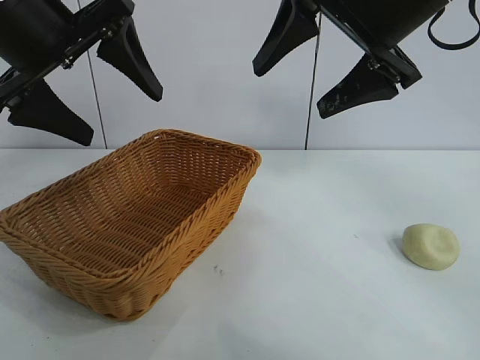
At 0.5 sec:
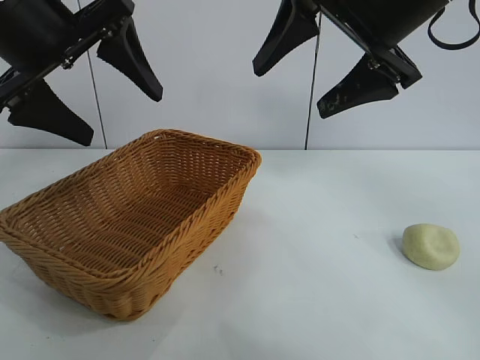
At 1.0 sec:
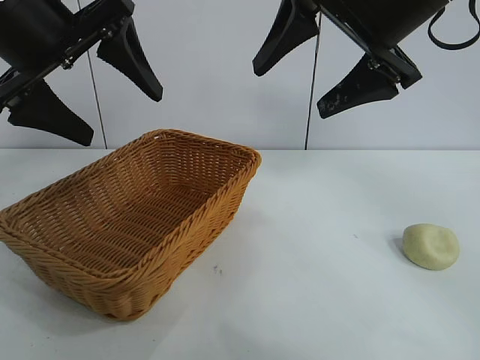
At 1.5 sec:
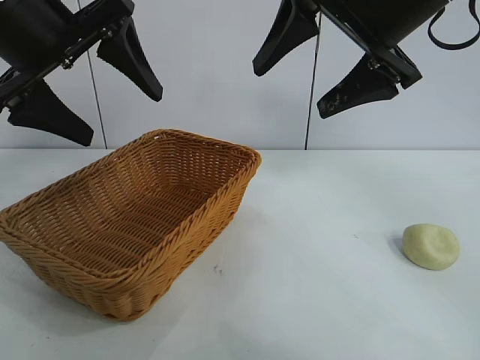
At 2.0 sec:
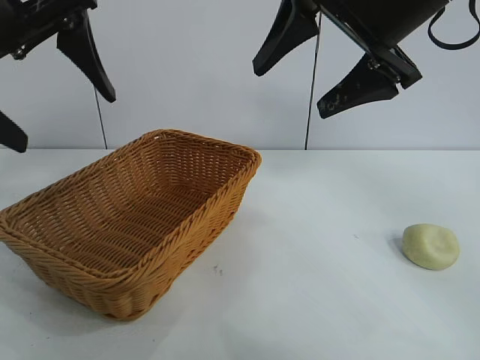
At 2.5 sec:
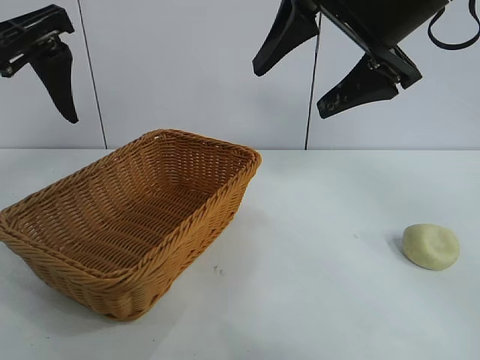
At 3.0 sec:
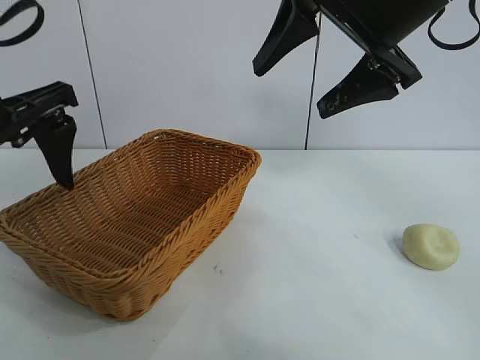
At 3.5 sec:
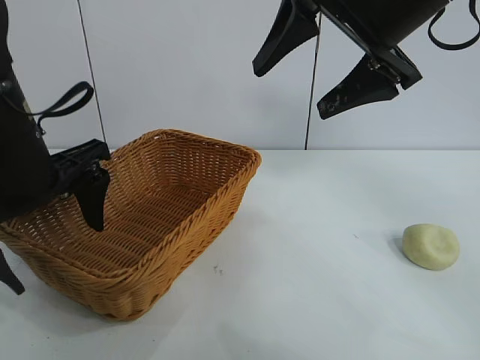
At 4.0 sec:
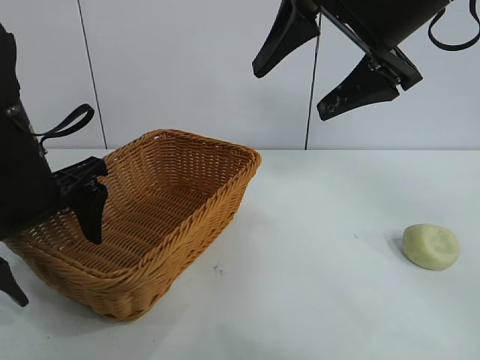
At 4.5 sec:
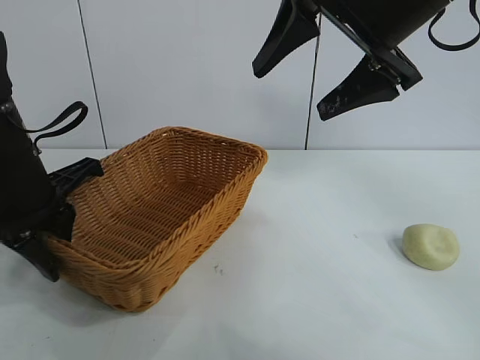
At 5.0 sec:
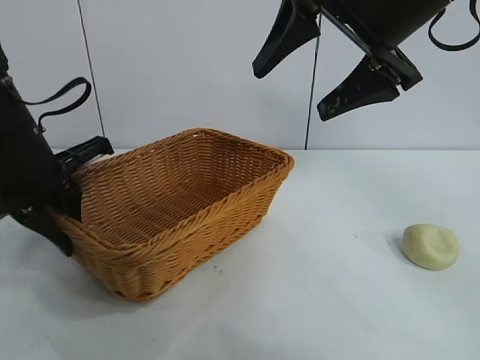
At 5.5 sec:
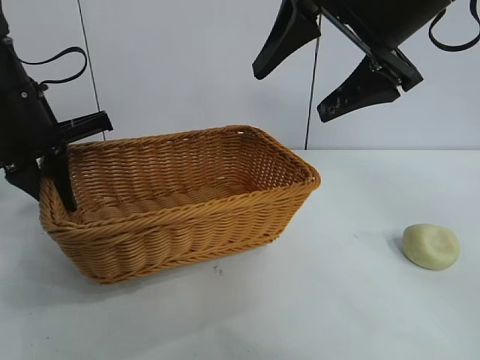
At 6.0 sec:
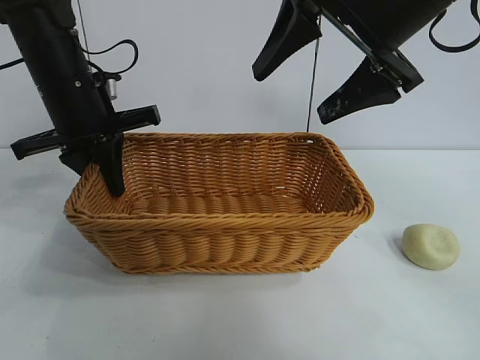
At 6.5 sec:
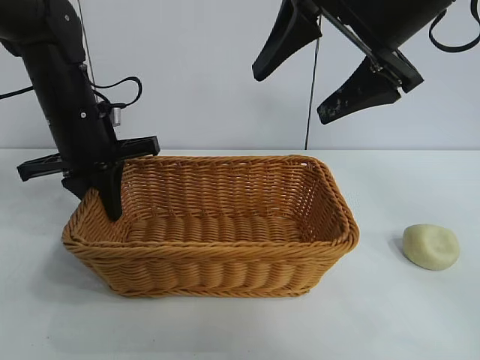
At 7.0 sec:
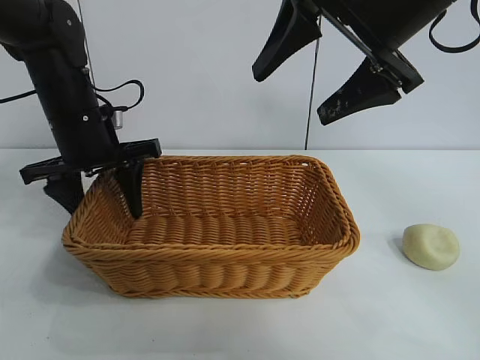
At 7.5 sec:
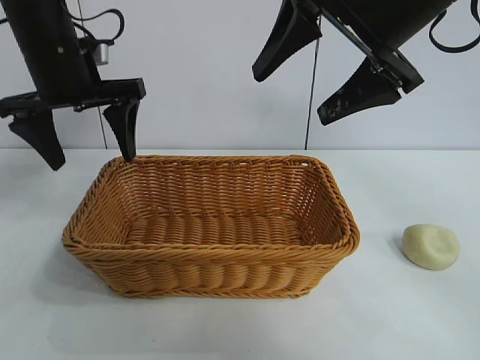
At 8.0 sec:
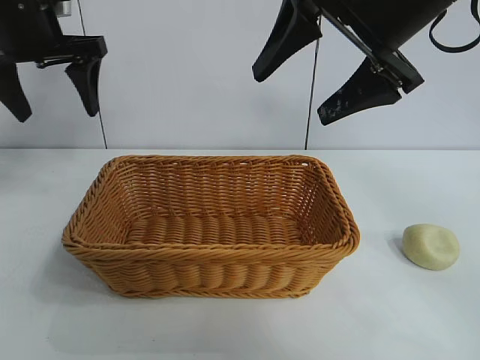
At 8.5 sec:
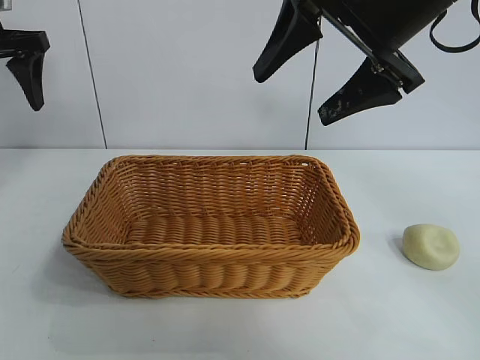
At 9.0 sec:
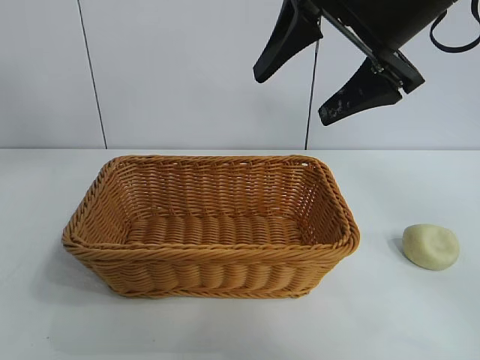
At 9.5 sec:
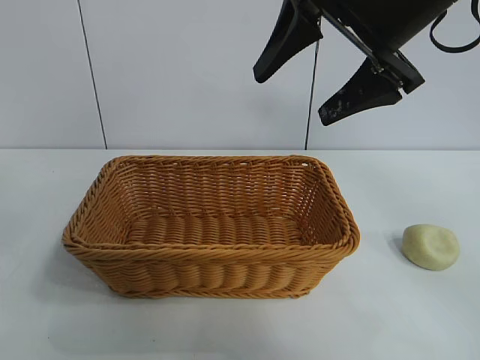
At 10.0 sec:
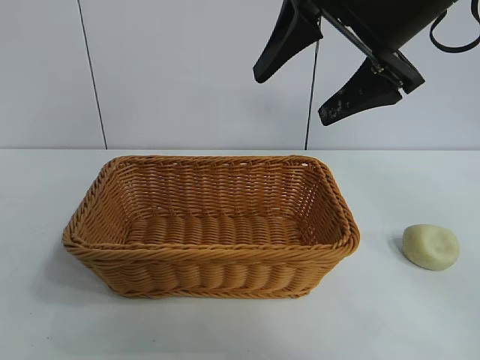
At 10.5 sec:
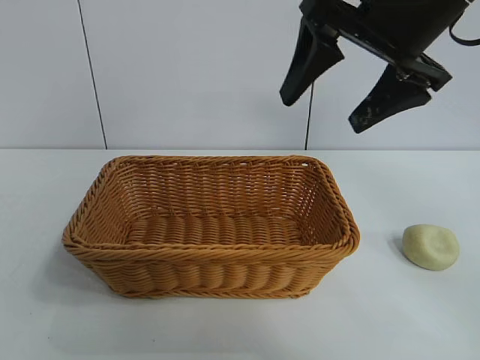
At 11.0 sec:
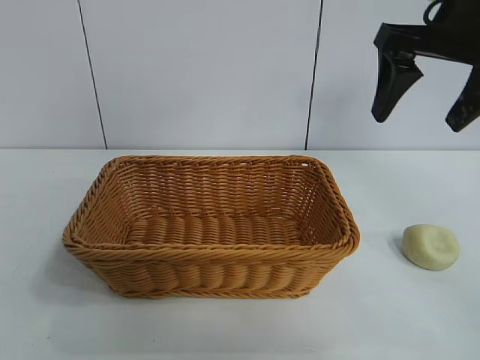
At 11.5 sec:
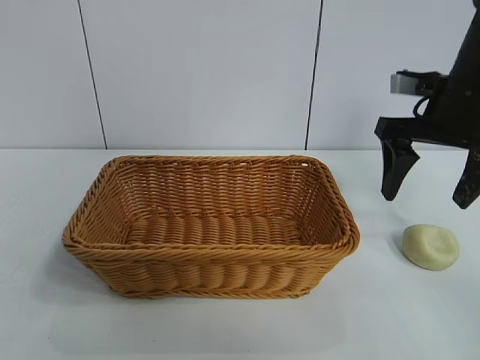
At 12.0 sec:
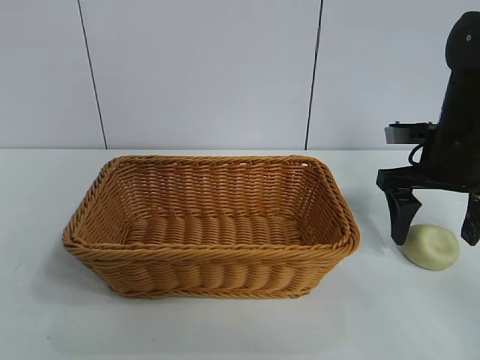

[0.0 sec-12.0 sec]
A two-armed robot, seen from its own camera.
Task of the whole recording: pick up the egg yolk pastry and put it into the basket.
Step, 1.5 sec to 4.5 sec: Grasp the basket with left gripper.
Step, 5.0 sec to 6.5 sec: Place the basket in the center of view with left gripper.

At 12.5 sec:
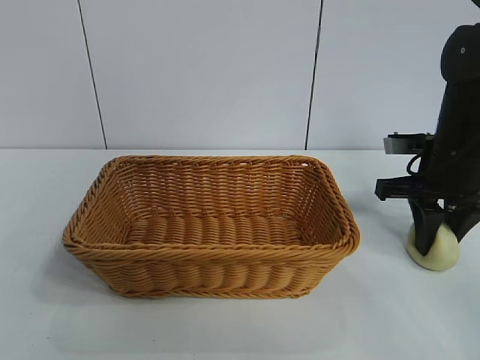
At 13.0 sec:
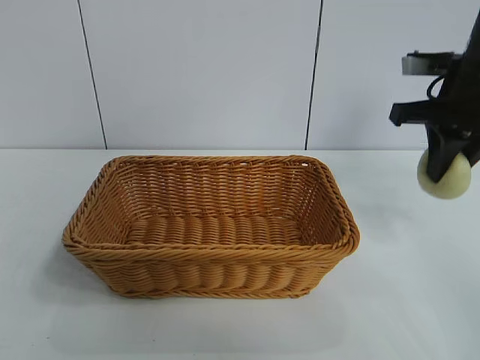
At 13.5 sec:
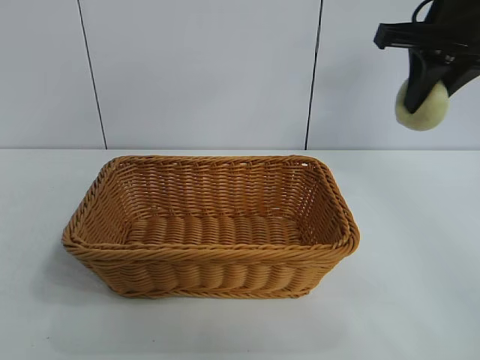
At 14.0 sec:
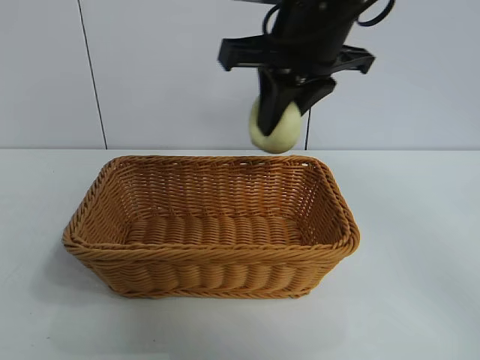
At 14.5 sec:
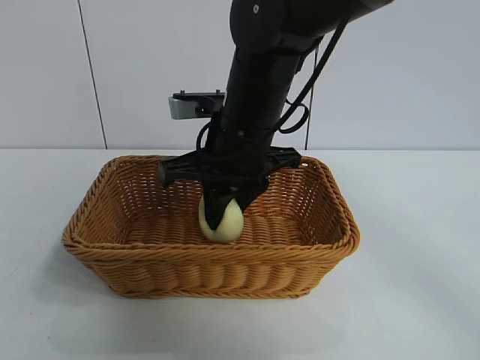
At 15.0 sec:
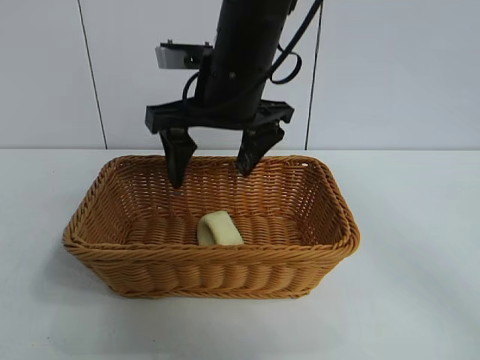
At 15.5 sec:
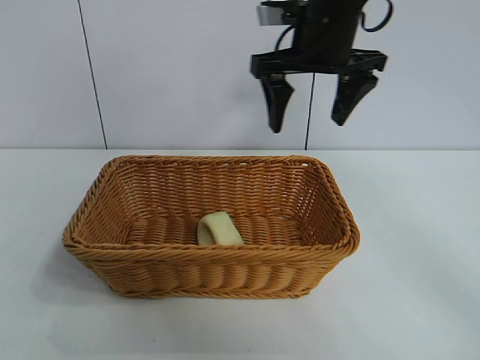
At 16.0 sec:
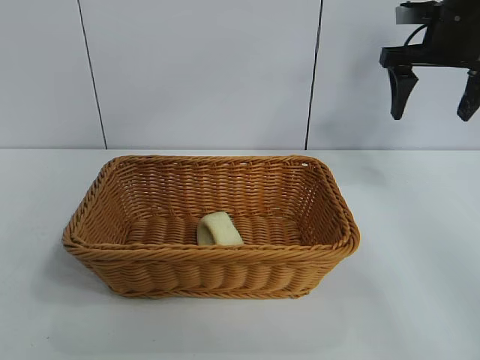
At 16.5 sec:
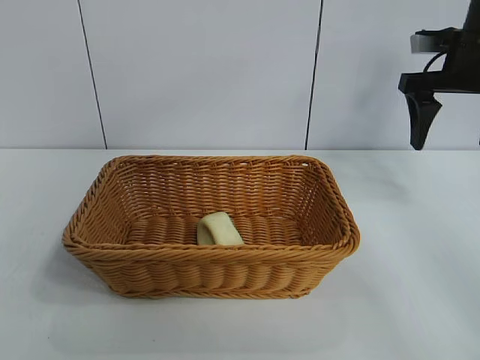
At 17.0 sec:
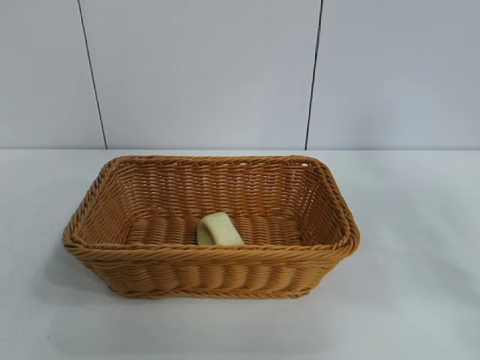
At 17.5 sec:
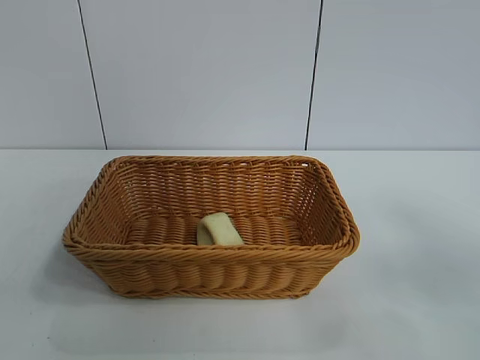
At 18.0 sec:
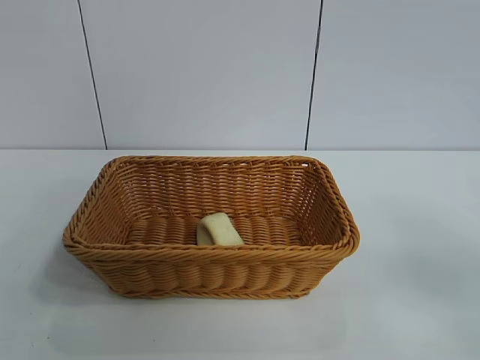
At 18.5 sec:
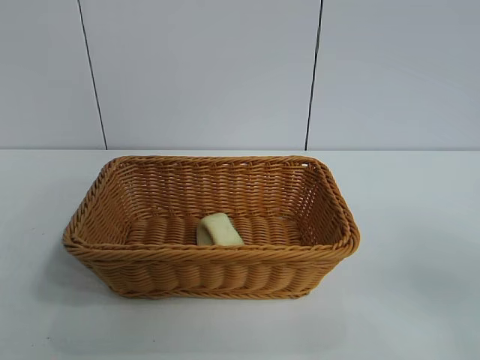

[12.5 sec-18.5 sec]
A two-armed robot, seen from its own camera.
Task of the whole recording: pick up the egg yolk pastry and put it into the basket.
Step, 13.0 sec to 14.5 sec: Place the egg yolk pastry in the basket with right gripper.

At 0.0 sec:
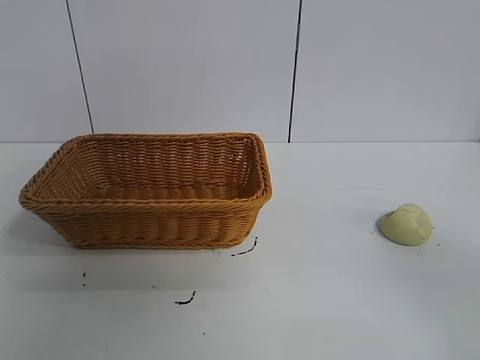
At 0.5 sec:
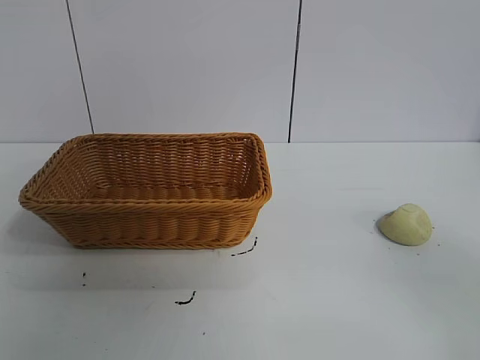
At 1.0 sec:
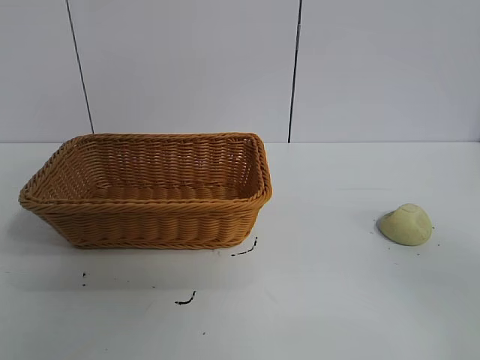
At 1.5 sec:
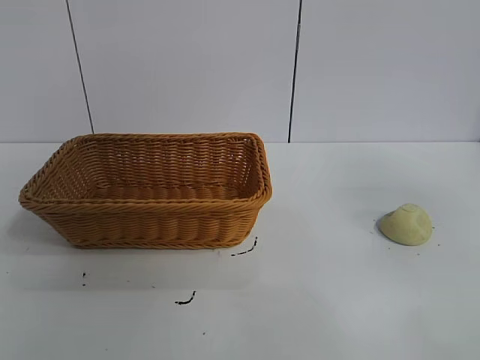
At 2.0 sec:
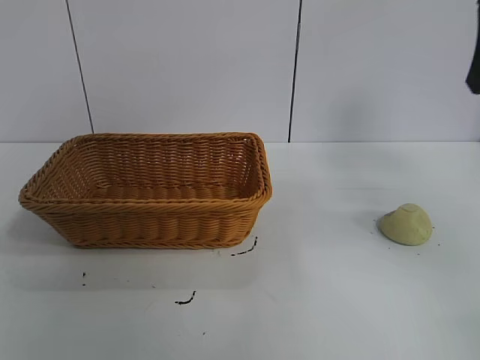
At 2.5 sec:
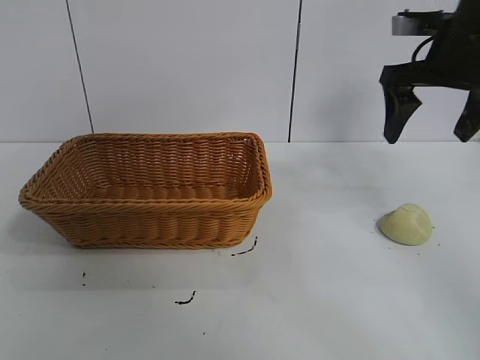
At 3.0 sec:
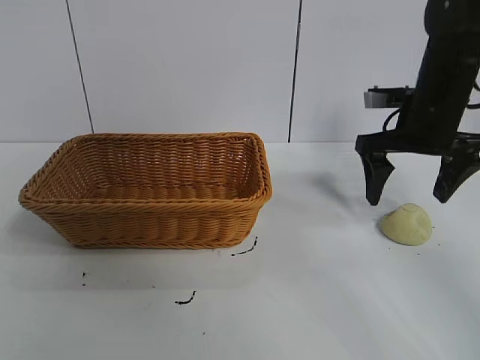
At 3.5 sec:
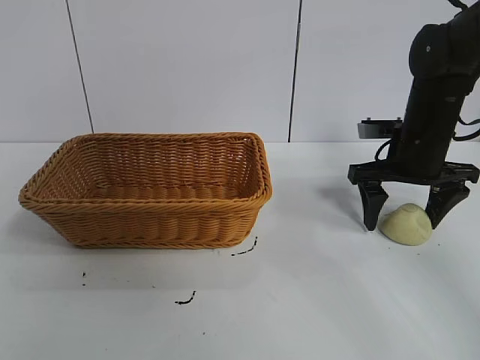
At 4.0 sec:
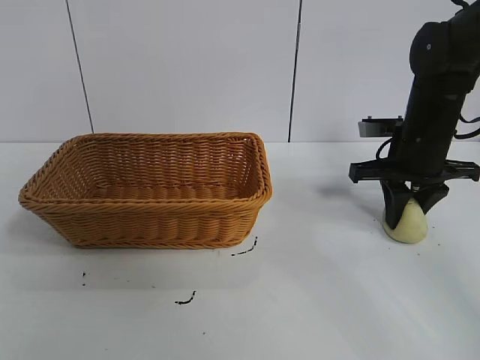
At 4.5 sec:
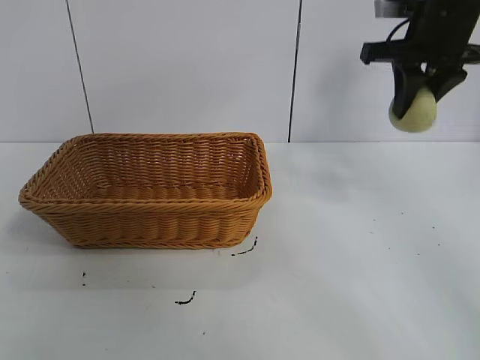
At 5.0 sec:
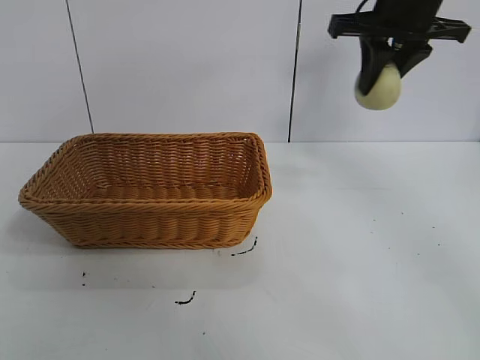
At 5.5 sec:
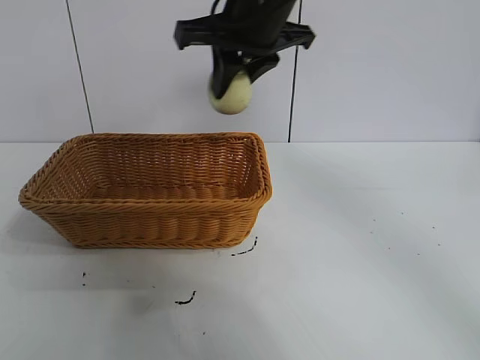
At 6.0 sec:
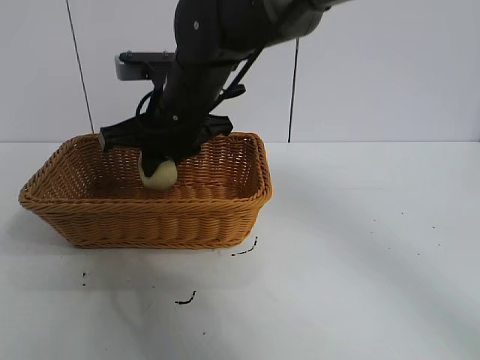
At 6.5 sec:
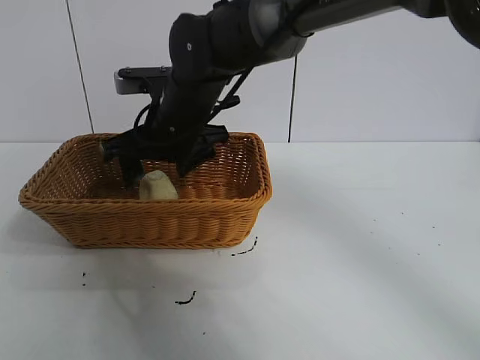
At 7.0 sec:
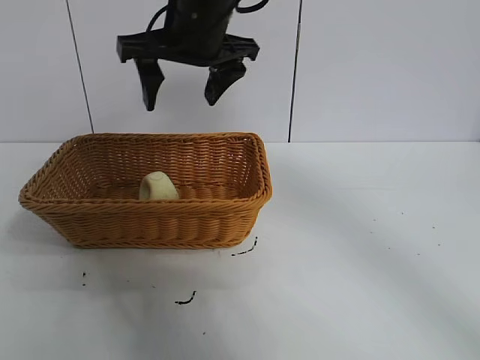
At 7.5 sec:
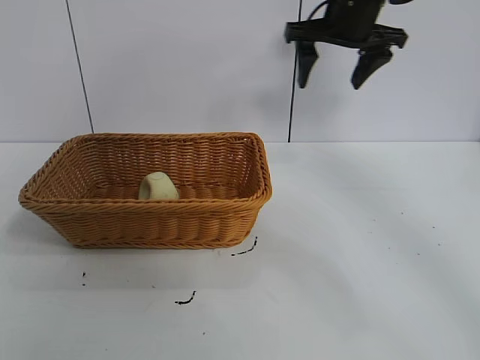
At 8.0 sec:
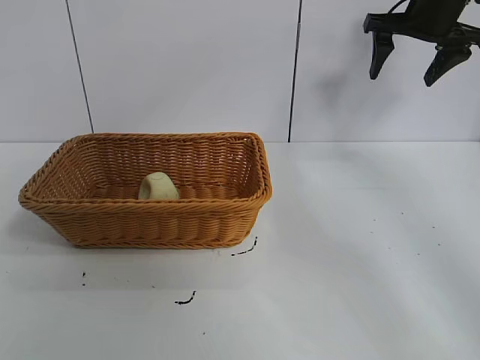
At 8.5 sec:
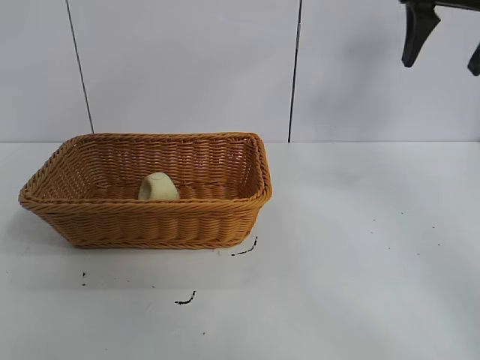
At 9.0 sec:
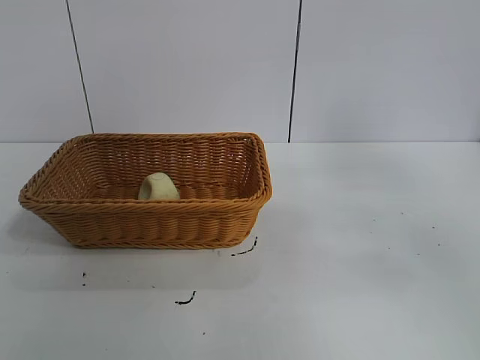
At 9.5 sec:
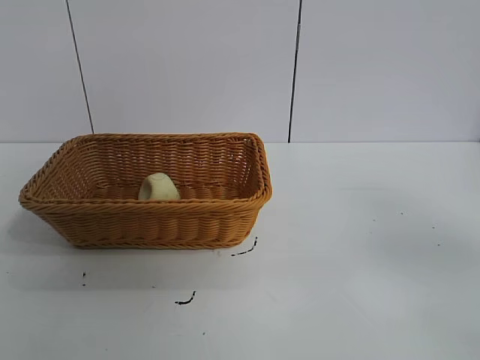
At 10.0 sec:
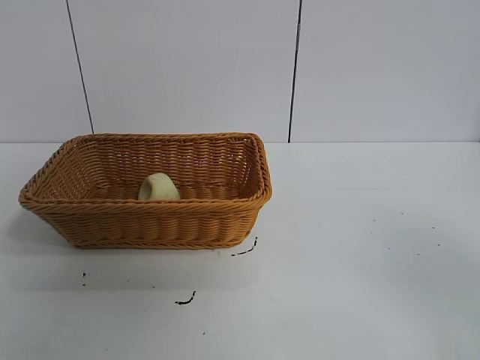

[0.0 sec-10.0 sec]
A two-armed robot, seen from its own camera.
Task of the whole recording: pick up the egg yolk pastry and put it into the basket.
Step, 1.0 sec to 4.0 sec: Grasp egg yolk pastry with right gripper.
Step, 4.5 sec to 6.5 sec: Place the egg yolk pastry in the basket with right gripper.
